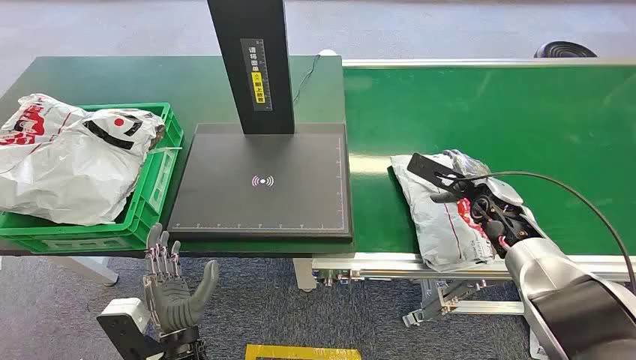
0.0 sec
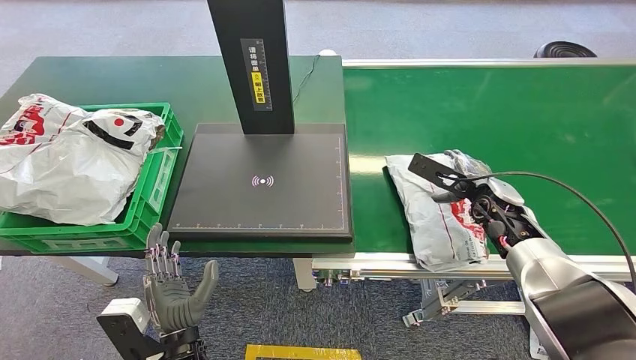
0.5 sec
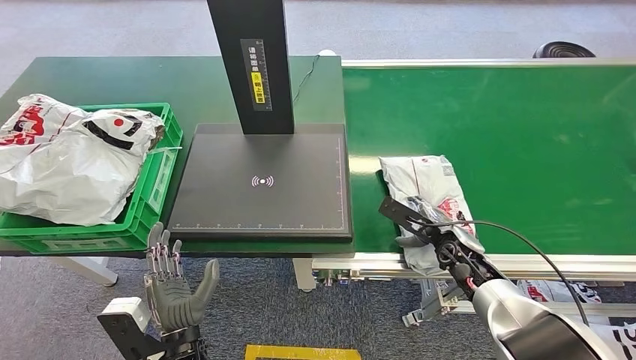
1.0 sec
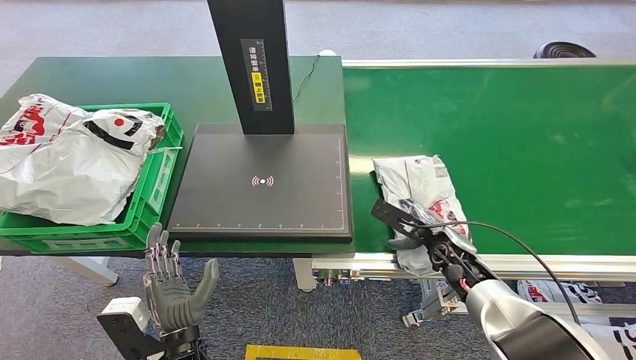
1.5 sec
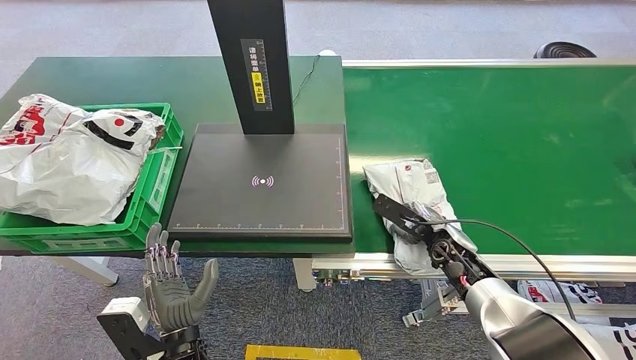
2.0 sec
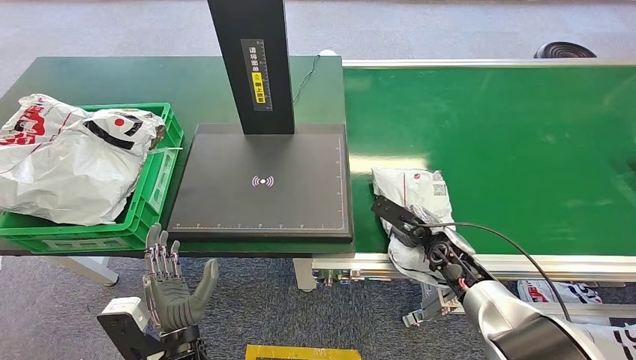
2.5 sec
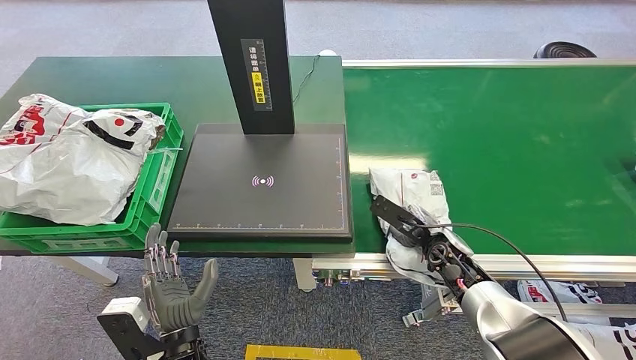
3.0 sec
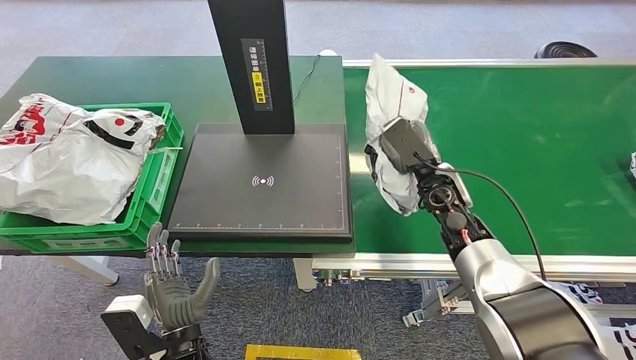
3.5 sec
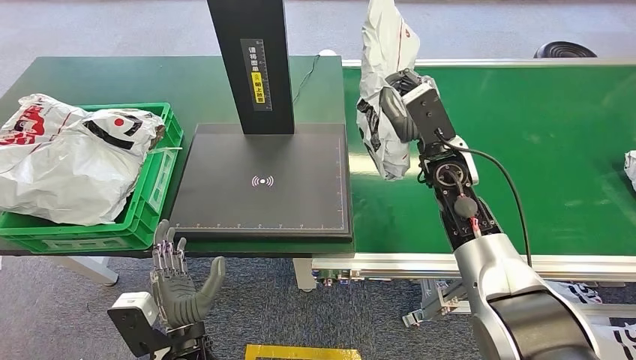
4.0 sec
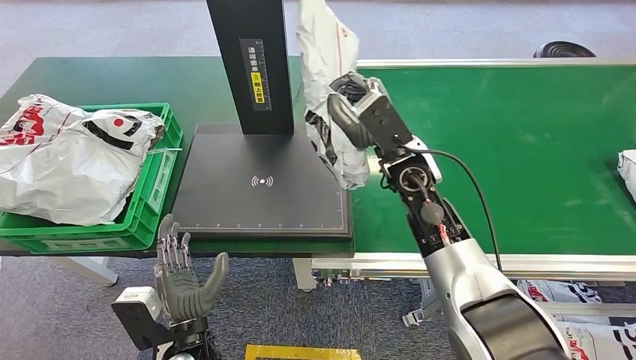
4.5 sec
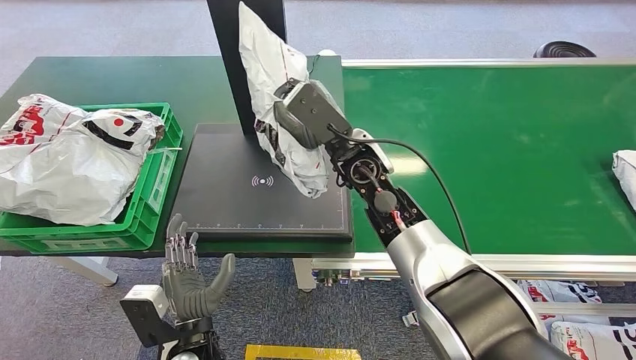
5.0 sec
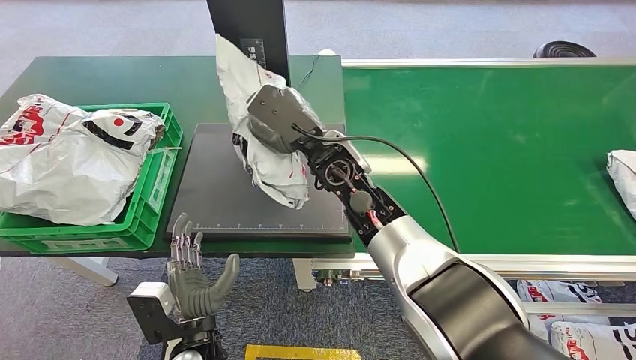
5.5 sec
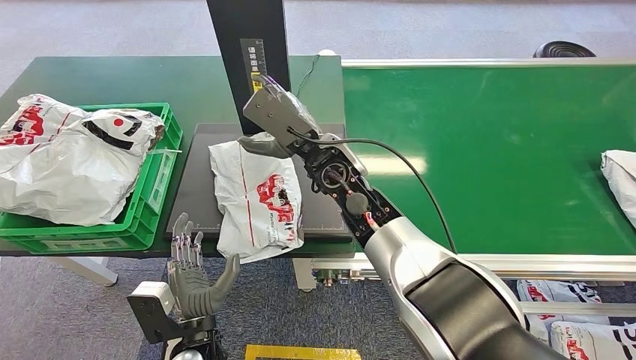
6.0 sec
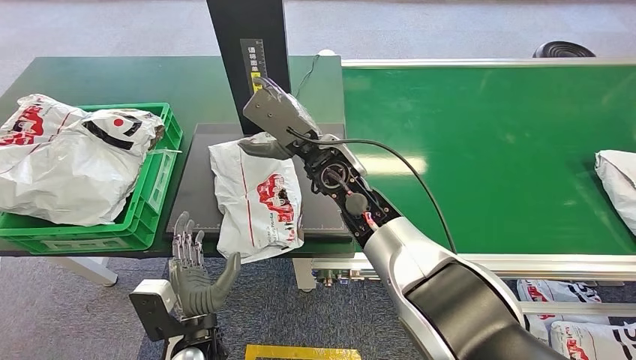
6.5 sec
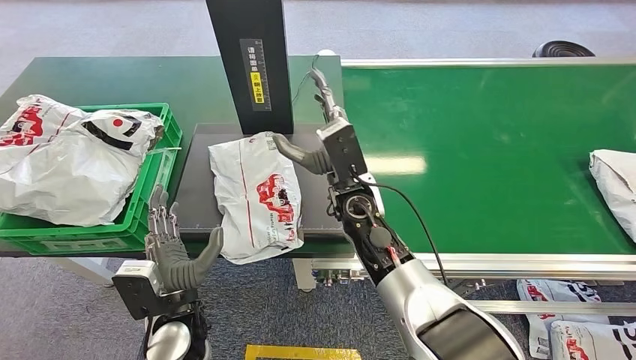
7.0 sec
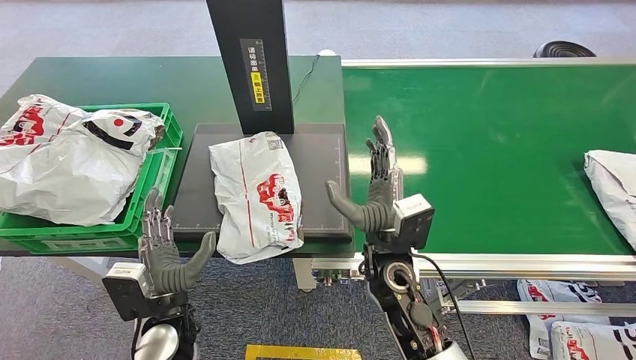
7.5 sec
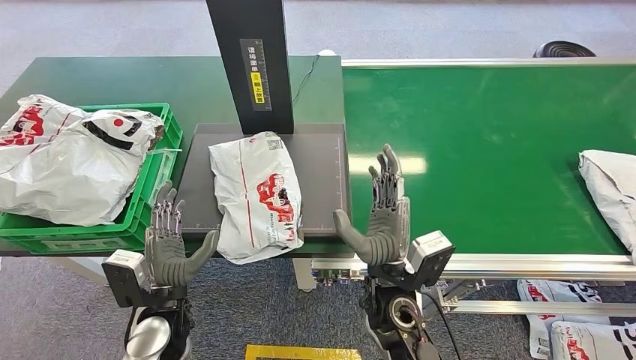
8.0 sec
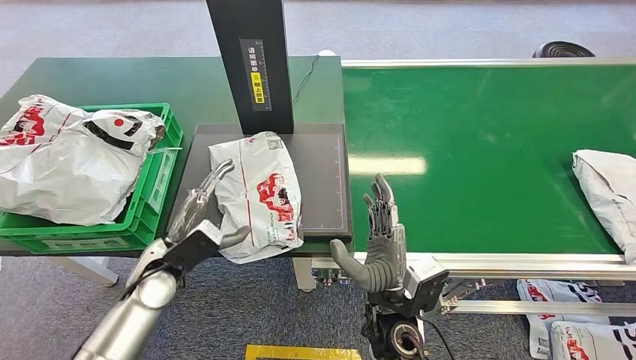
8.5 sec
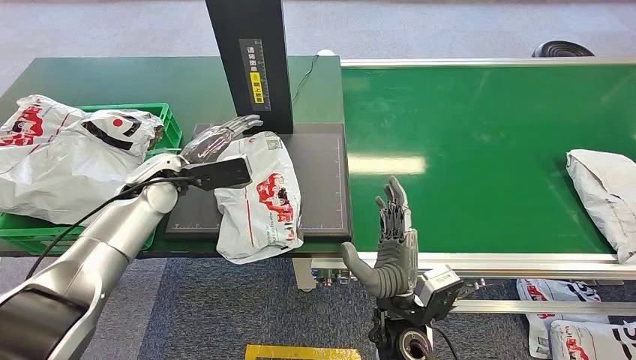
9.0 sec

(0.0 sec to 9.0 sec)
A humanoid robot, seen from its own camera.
Step, 0.0 sec - 3.5 sec: Pick up the package from the conveyor belt.
Step, 4.0 sec - 6.5 sec: Place the package onto the inbound machine.
2.0 sec - 4.5 sec: The right hand travels upward and to the left by about 25 cm.

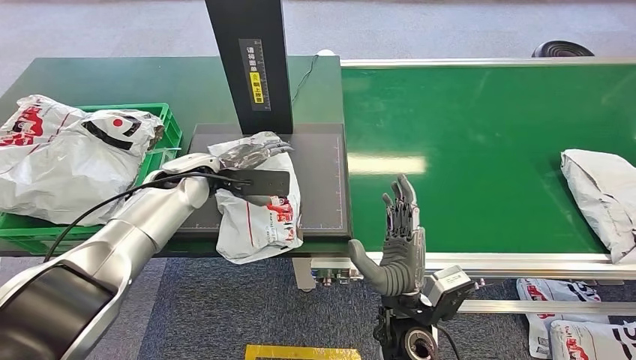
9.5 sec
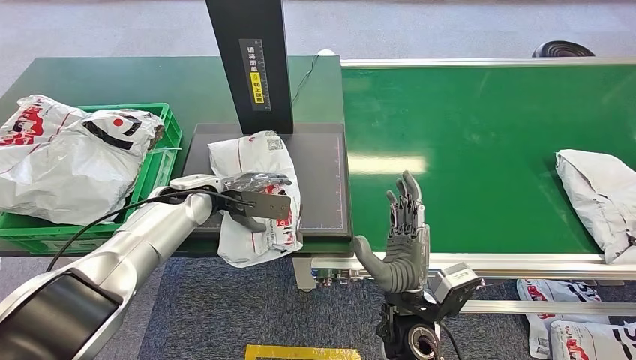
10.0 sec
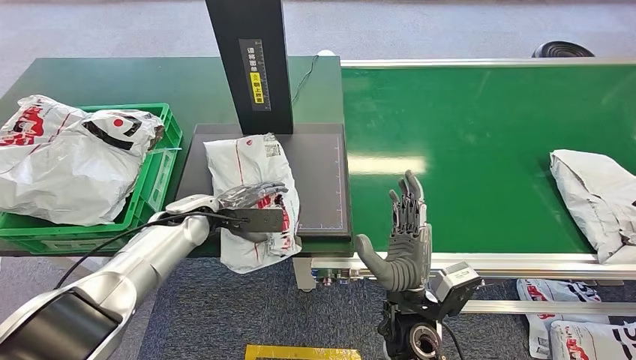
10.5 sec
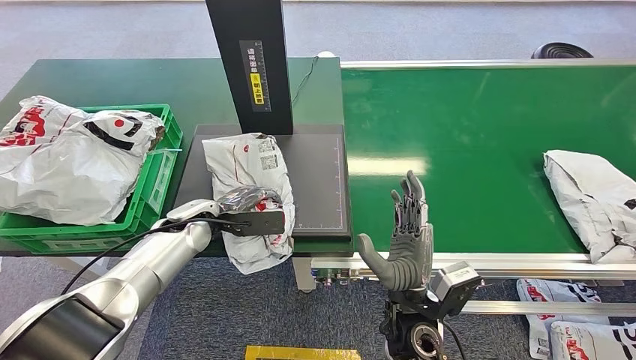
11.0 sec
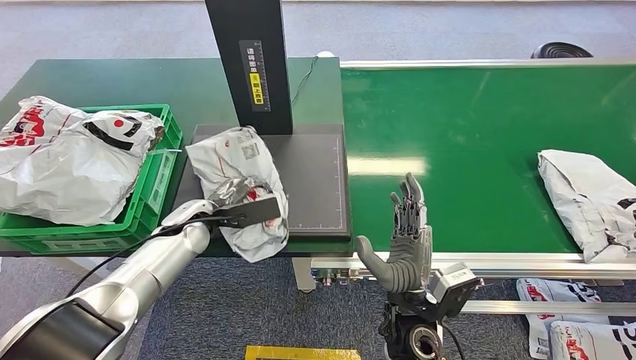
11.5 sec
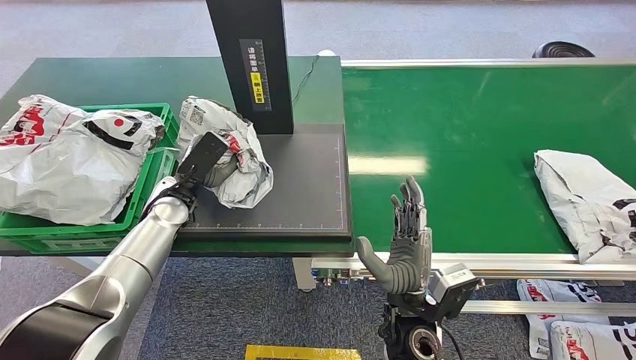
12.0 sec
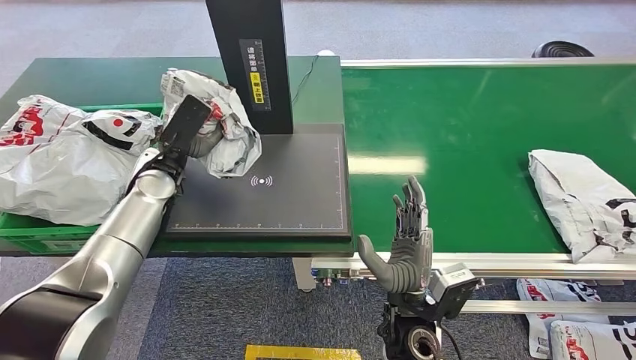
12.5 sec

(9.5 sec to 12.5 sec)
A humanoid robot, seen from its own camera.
Step, 9.5 sec - 12.5 sec: Pick up the package from the inbound machine.
